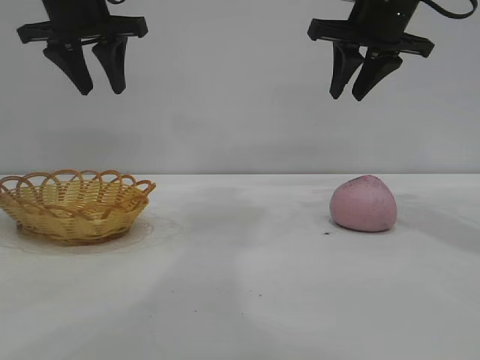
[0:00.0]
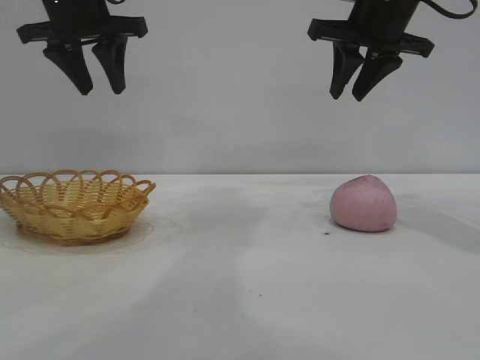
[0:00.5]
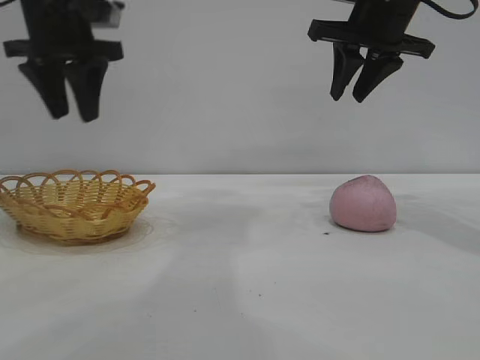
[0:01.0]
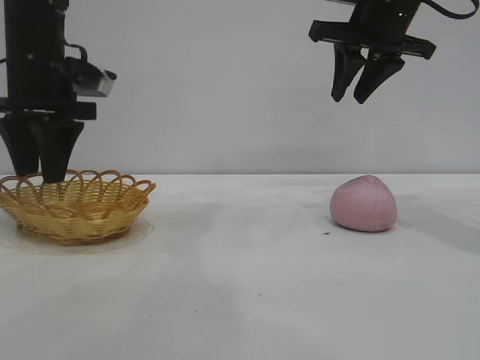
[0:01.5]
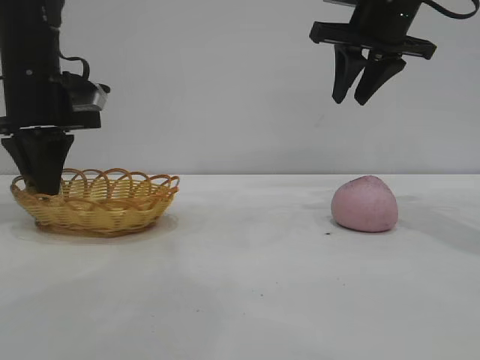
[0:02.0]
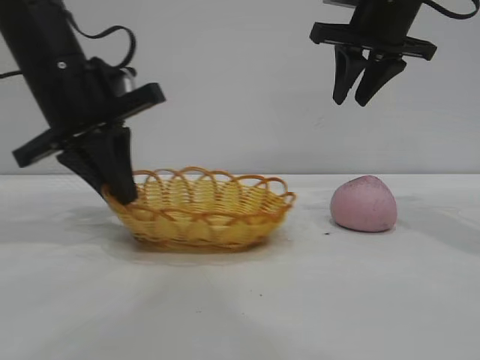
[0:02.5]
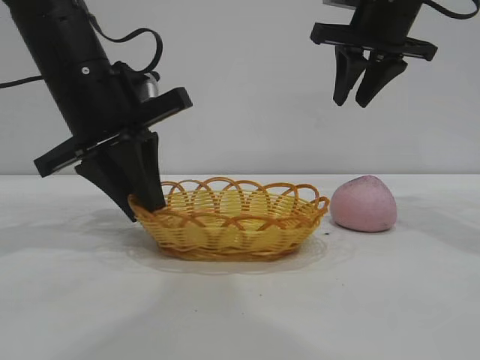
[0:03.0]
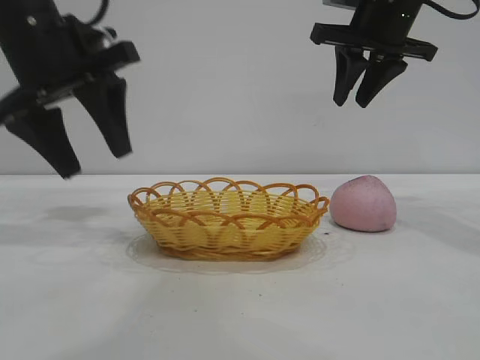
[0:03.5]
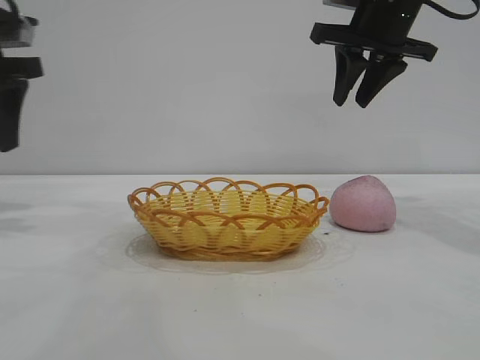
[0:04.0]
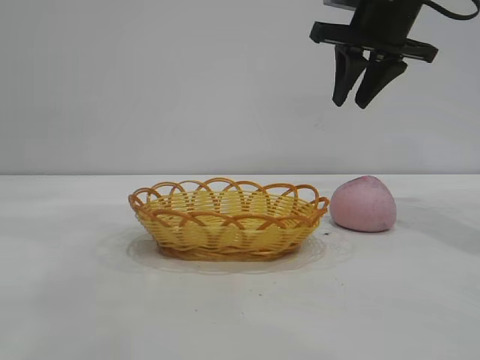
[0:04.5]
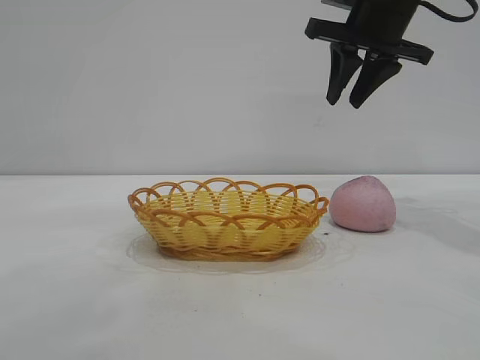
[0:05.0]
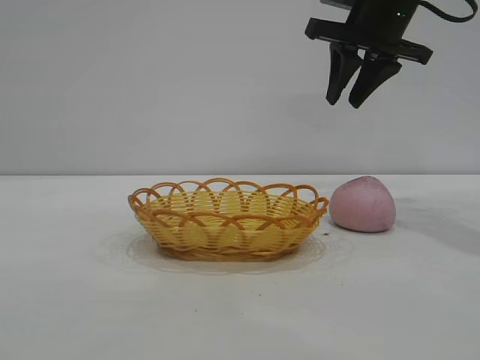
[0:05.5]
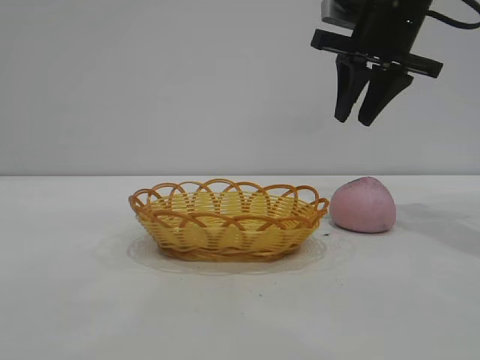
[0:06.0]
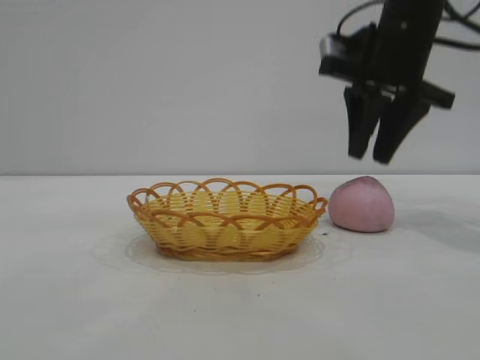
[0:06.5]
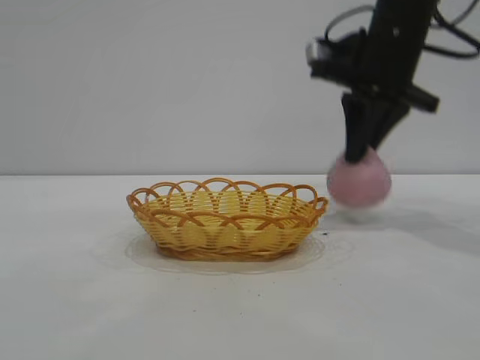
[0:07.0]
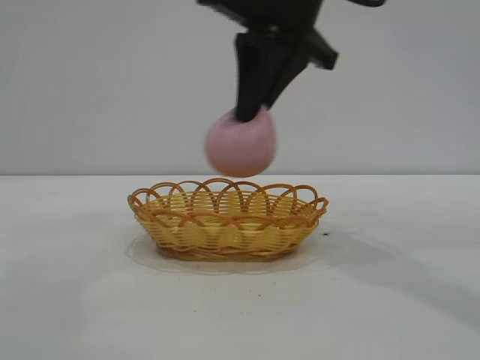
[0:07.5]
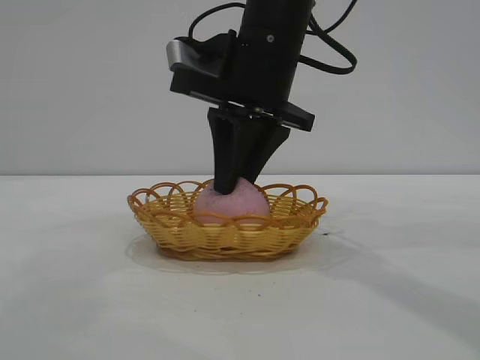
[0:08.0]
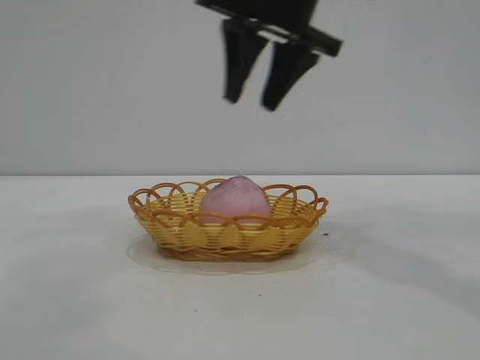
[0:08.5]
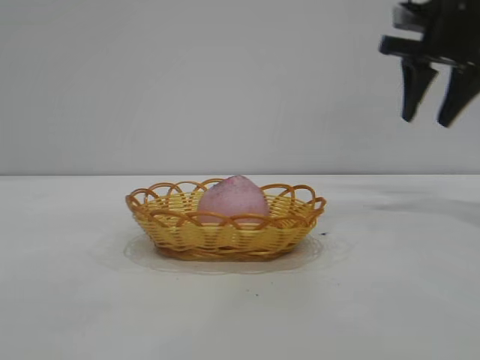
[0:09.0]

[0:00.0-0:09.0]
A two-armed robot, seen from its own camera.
Task of the whole recording: pick up the peach and put it into the basket.
Step, 0:00.0 to 0:03.0: Move the basket to the center of view.
Step, 0:03.5 to 0:07.0: Pick up the peach.
Step, 0:07.5 to 0:08.0: place the peach into the basket.

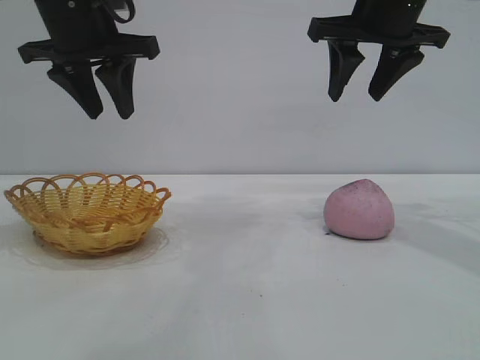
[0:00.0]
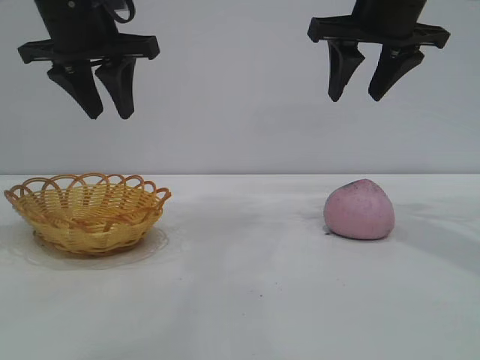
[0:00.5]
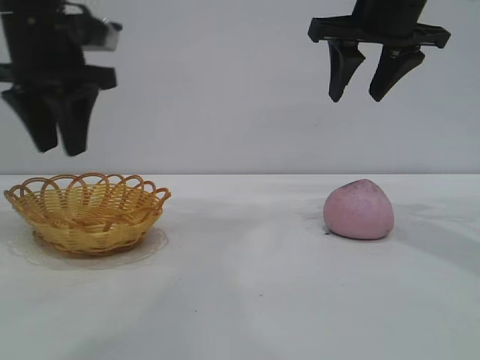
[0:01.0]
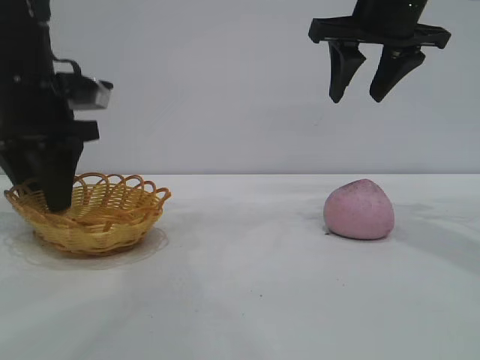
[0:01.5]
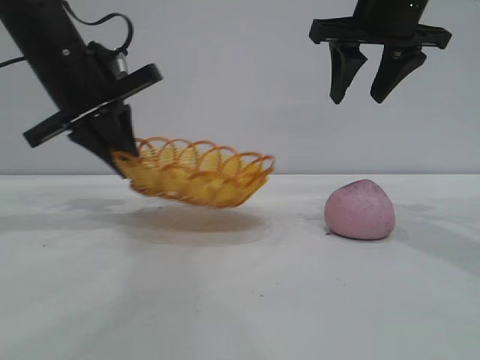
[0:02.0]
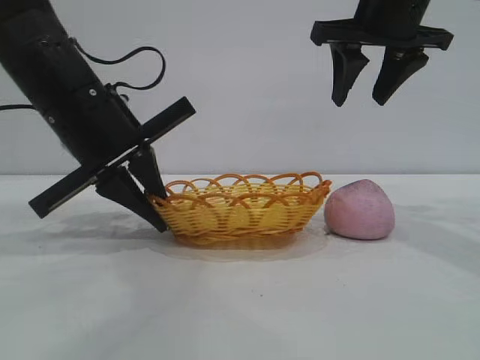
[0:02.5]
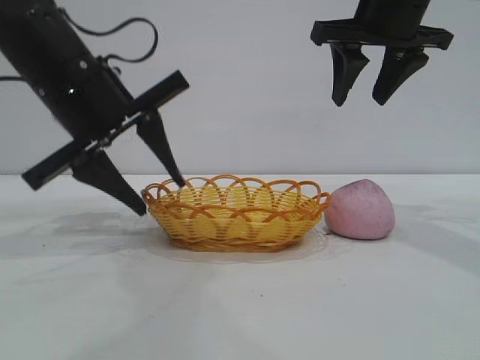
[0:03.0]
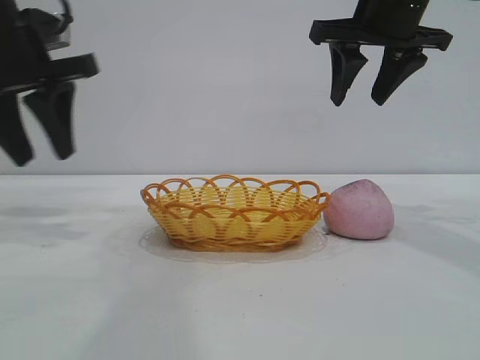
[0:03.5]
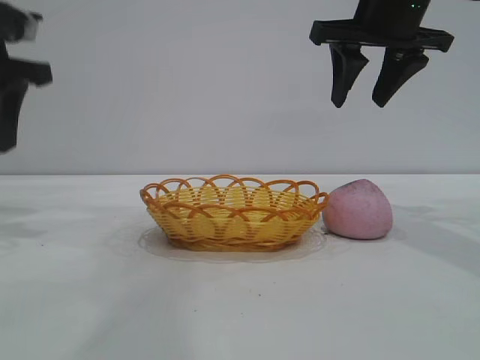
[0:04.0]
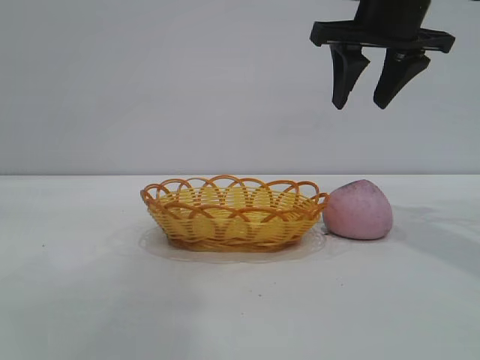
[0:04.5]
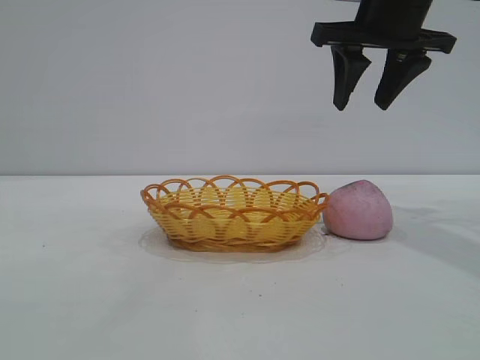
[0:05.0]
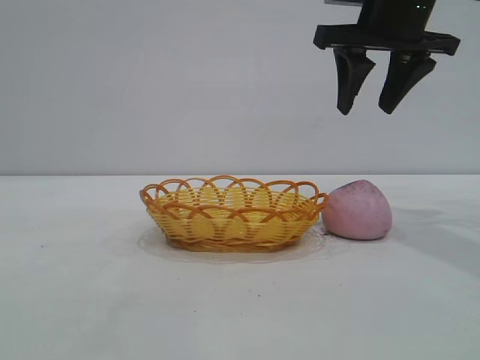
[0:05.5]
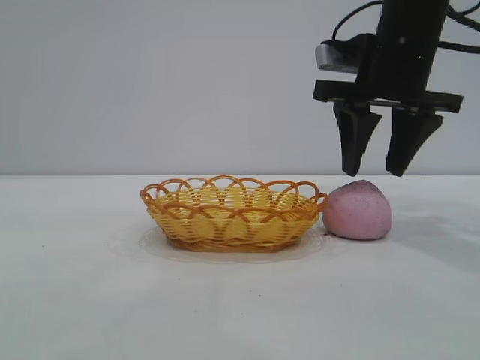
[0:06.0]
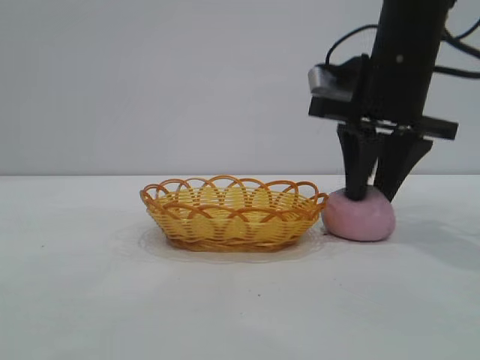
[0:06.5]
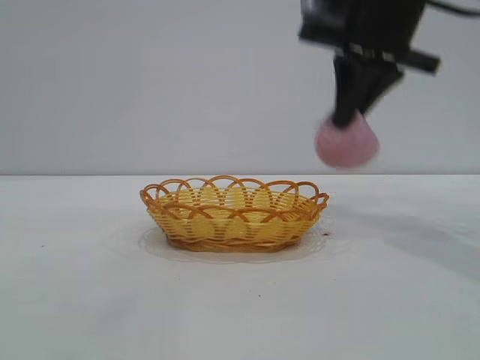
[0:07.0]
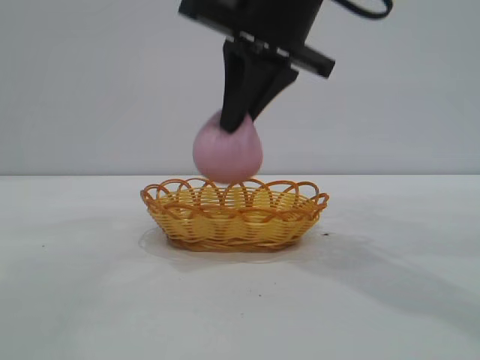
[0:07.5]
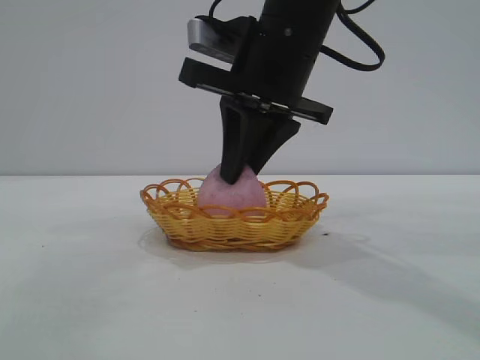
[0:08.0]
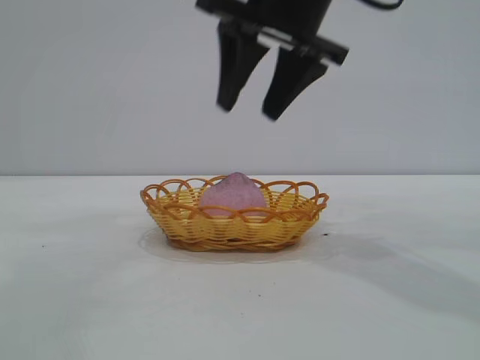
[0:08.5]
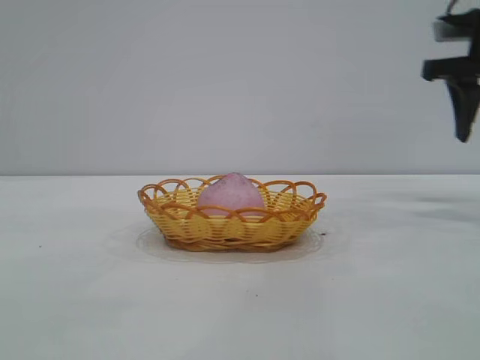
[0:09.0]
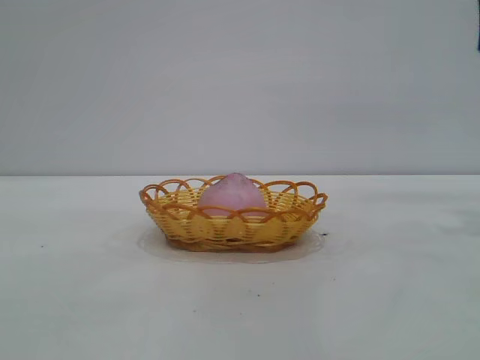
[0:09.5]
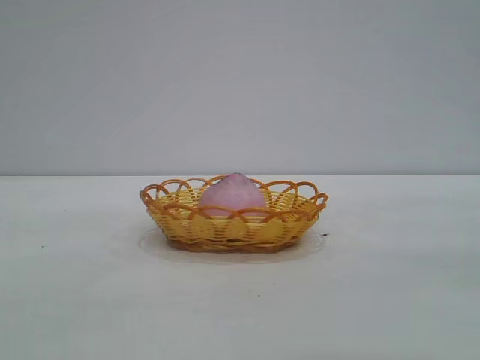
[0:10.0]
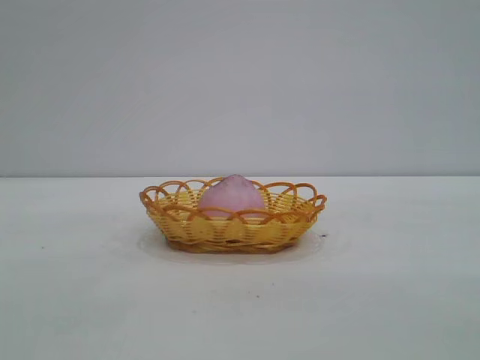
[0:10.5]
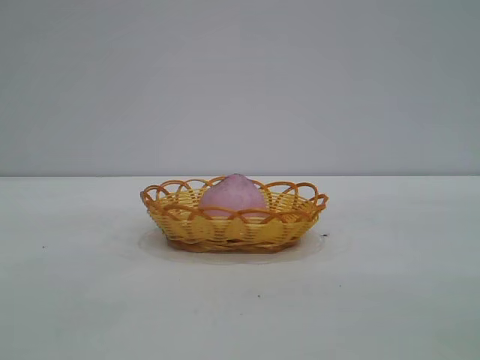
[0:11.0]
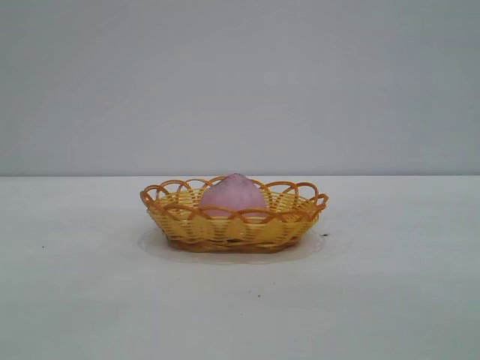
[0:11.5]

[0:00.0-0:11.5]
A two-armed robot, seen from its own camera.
Task of the whole recording: pick up the peach and put it into the basket.
Step, 0:00.0 to 0:03.0: Move the basket to the center of view.
Step, 0:03.5 to 0:07.0: Pick up the peach.
Step, 0:07.5 to 0:08.5: place the peach into the basket.
